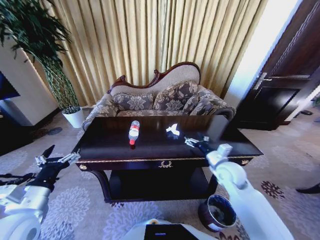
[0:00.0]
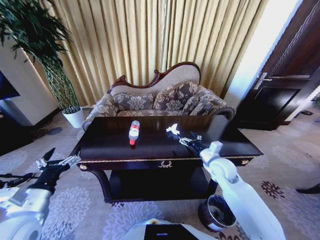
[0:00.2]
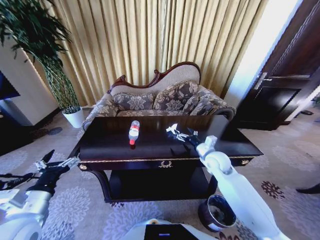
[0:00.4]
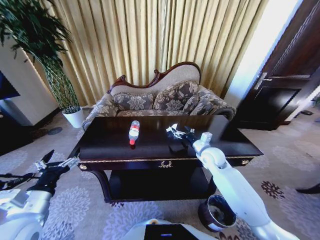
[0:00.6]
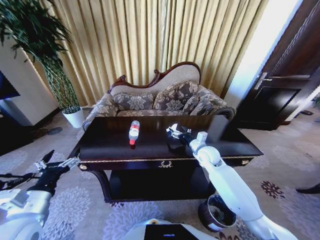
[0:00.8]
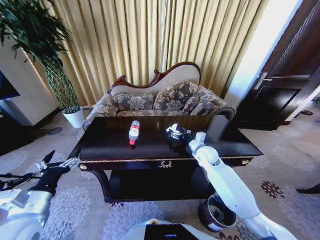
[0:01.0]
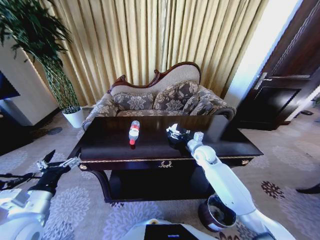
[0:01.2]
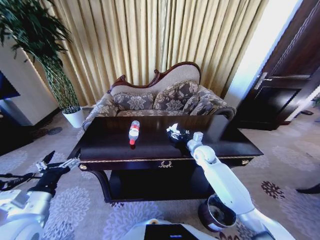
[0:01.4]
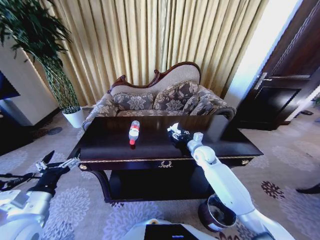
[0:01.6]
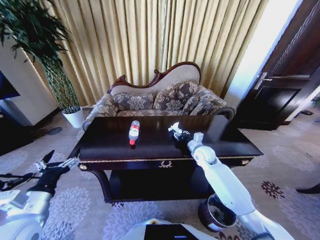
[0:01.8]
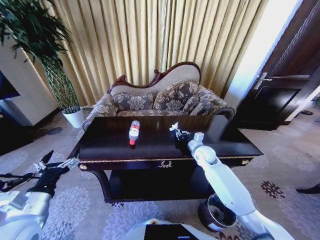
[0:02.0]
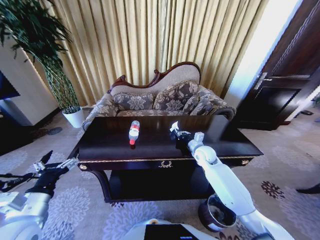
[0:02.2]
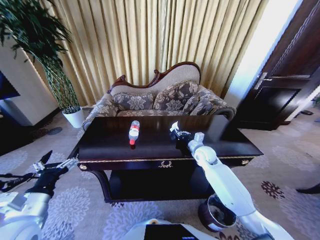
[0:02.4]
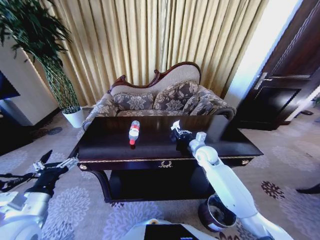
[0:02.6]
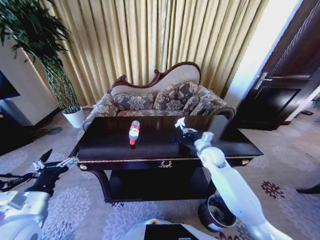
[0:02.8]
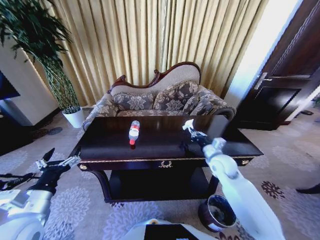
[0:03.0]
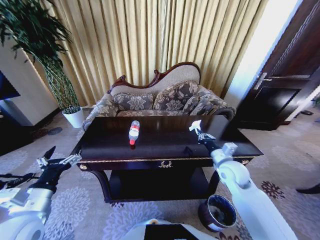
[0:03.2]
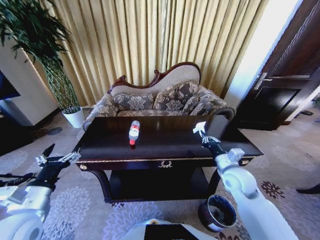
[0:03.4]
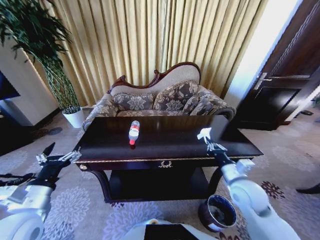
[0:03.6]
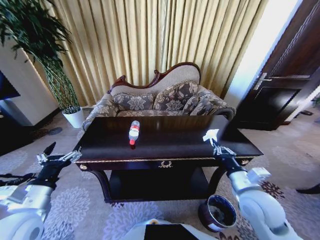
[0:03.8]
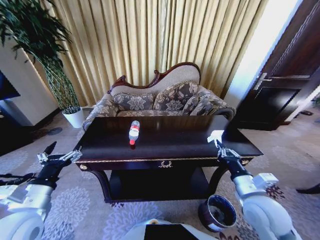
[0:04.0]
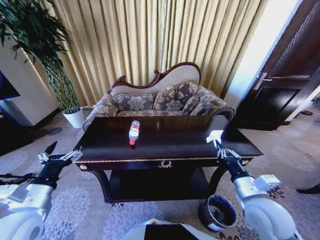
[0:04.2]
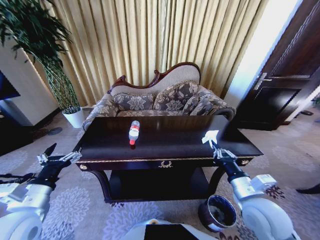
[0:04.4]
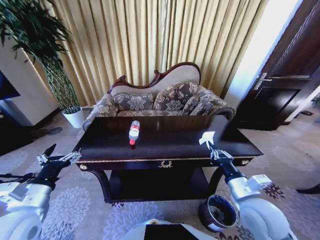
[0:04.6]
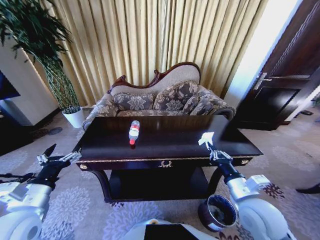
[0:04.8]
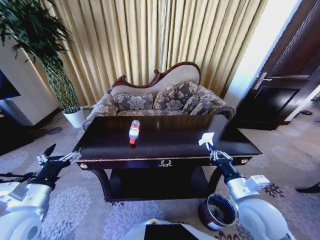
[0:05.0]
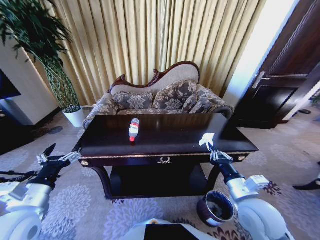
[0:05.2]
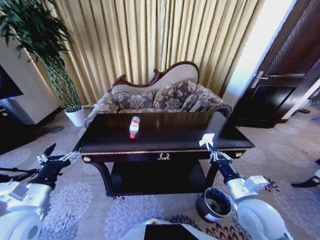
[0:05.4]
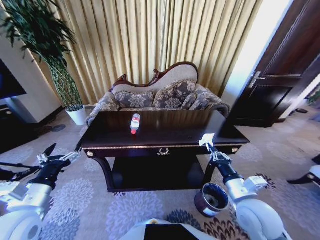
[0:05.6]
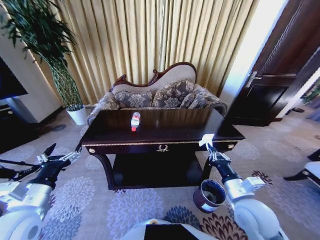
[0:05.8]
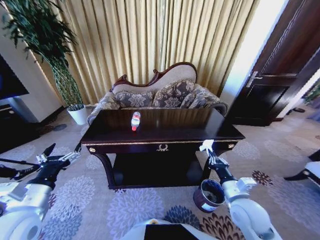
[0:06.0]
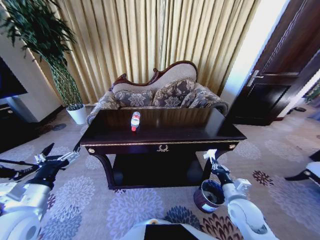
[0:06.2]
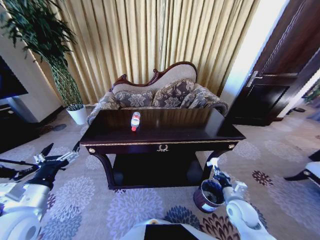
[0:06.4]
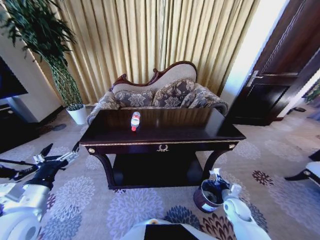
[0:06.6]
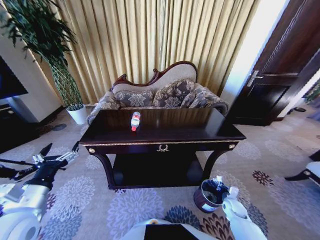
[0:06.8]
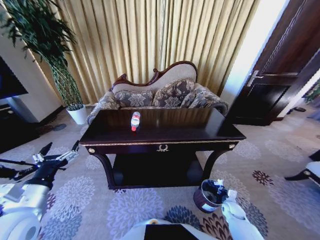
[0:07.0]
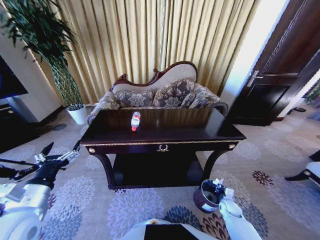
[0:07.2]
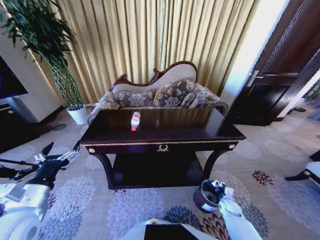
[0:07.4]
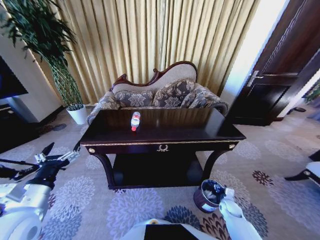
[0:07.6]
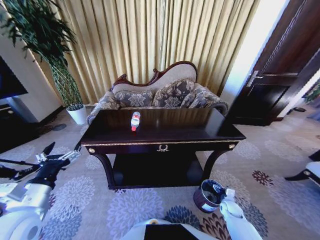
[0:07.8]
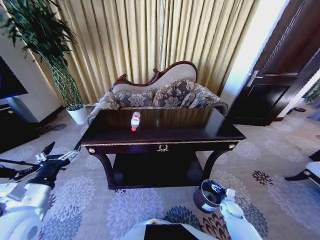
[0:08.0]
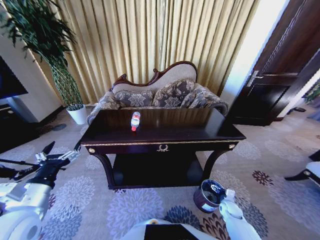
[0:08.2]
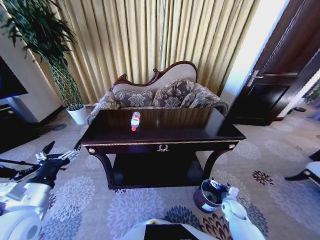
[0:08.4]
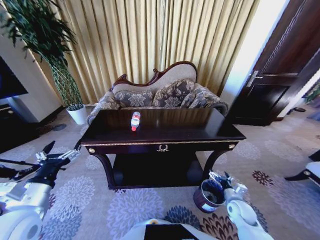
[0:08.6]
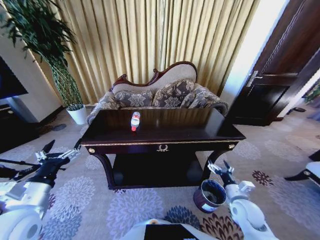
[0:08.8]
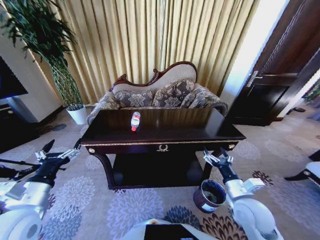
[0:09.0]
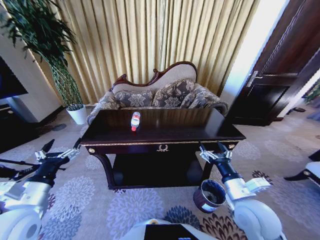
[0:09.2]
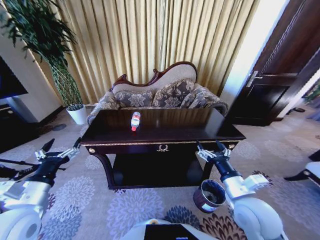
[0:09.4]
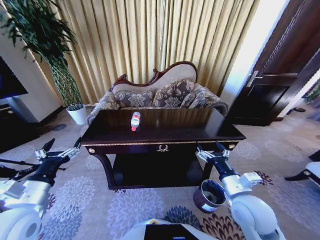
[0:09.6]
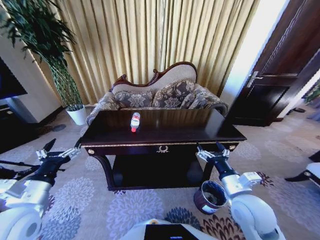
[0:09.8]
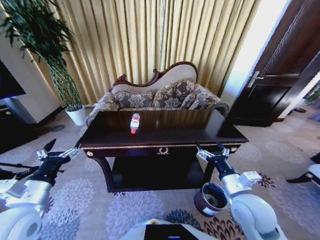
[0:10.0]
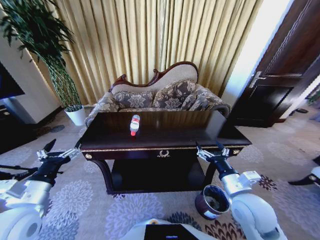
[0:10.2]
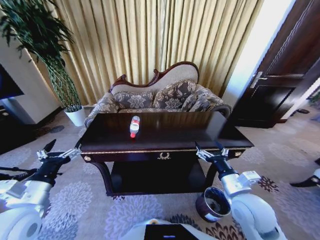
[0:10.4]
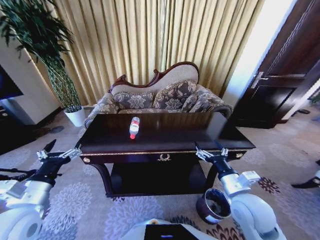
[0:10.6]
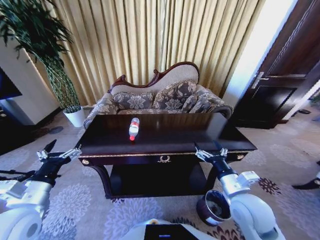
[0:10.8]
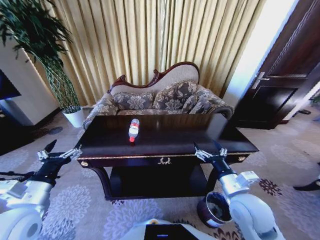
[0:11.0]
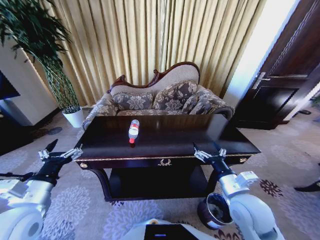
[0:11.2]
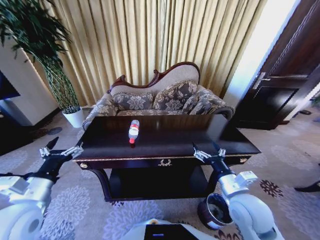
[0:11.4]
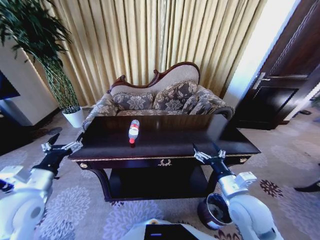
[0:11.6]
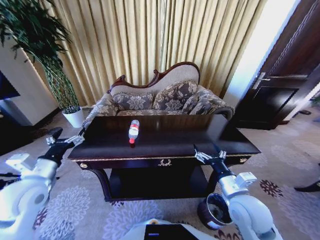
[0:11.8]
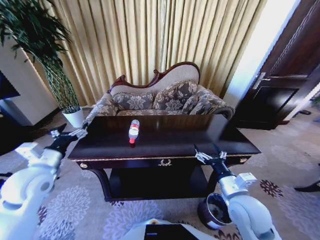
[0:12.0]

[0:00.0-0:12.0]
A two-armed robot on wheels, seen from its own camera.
Task of the whole recording: Move to the front of the table and place the trash on the table into the trash bin.
0:00.0 to 0:01.6: The right gripper is displaced forward by roughly 10 cm.
0:01.6 to 0:03.0: The right gripper heads backward, covering approximately 5 cm, and closes.
0:03.0 to 0:04.4: The right gripper is displaced backward by roughly 20 cm.
0:04.4 to 0:06.0: The right gripper is displaced downward by about 5 cm.
0:06.0 to 0:07.6: The right gripper is displaced downward and to the right by about 30 cm, and opens its fingers.
0:07.6 to 0:09.0: The right gripper moves upward, roughly 25 cm, and opens its fingers.
0:09.0 to 0:10.4: The right gripper goes roughly 5 cm upward.
0:10.4 to 0:12.0: The left gripper heads forward, covering about 10 cm.

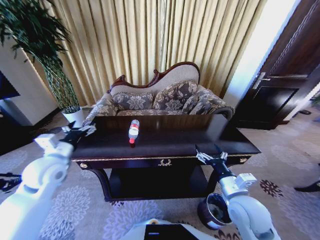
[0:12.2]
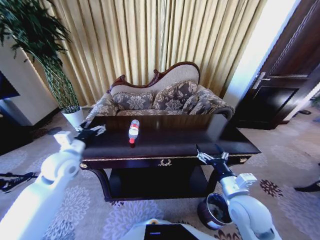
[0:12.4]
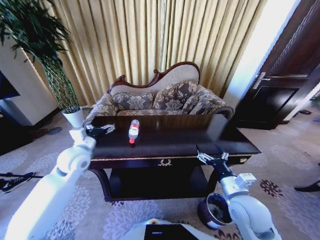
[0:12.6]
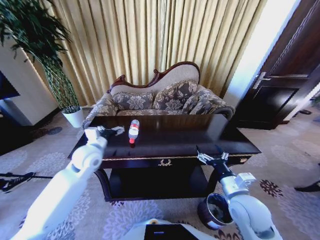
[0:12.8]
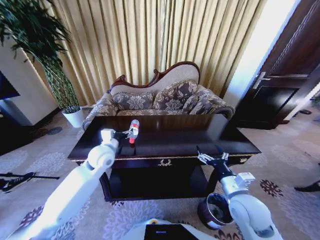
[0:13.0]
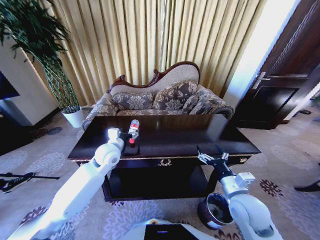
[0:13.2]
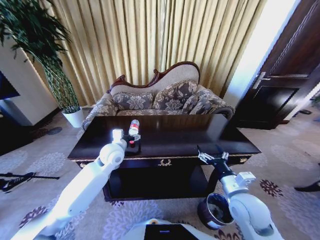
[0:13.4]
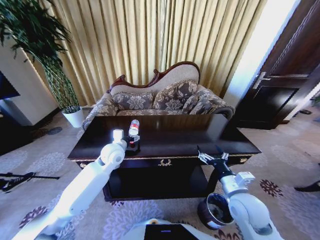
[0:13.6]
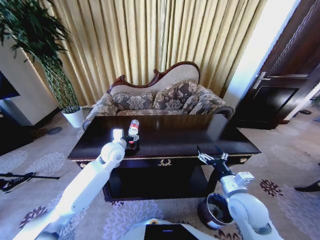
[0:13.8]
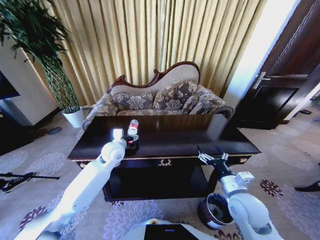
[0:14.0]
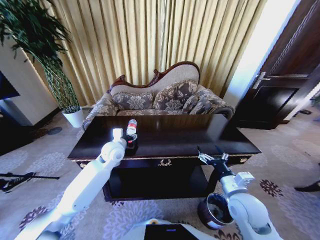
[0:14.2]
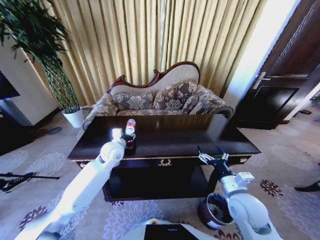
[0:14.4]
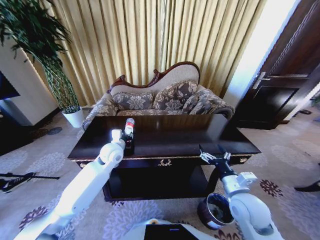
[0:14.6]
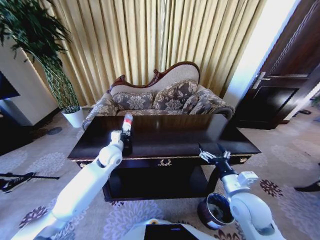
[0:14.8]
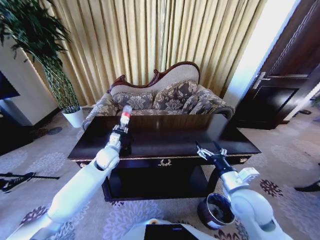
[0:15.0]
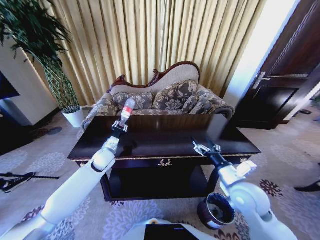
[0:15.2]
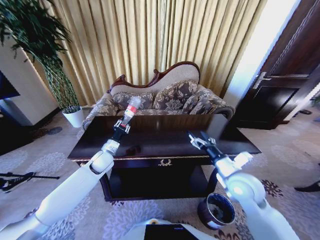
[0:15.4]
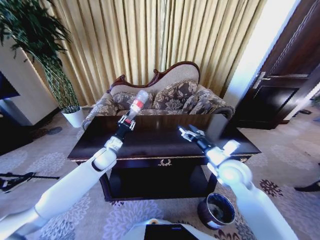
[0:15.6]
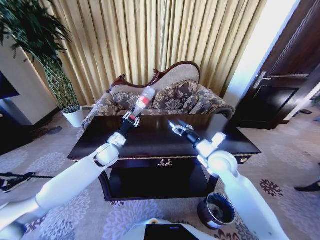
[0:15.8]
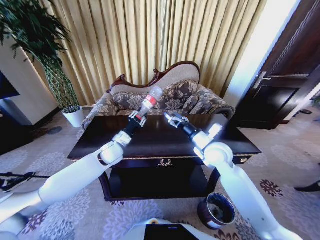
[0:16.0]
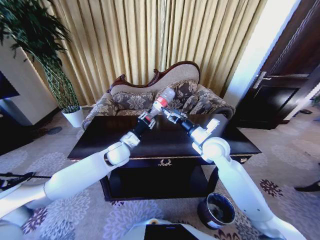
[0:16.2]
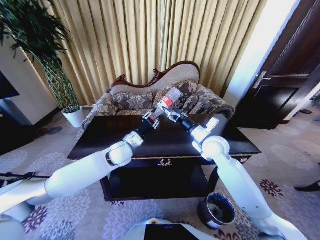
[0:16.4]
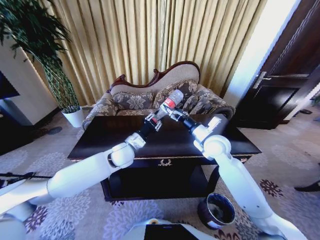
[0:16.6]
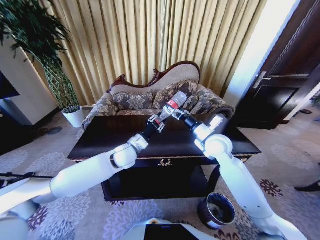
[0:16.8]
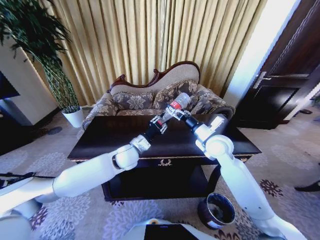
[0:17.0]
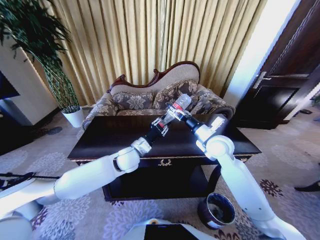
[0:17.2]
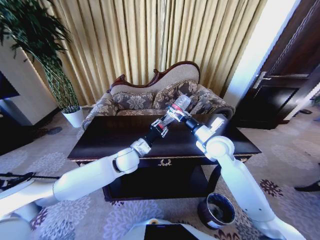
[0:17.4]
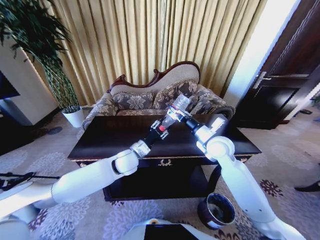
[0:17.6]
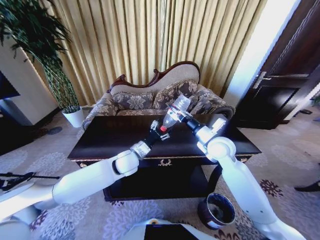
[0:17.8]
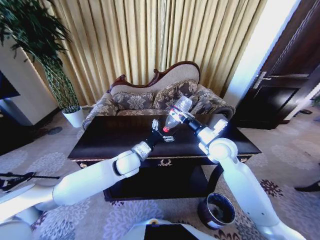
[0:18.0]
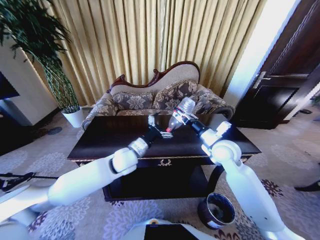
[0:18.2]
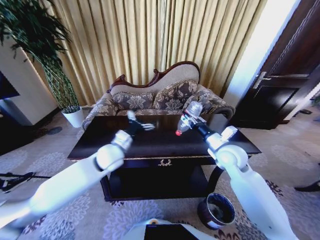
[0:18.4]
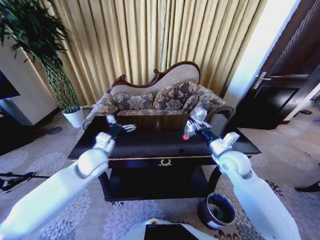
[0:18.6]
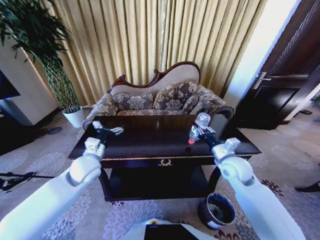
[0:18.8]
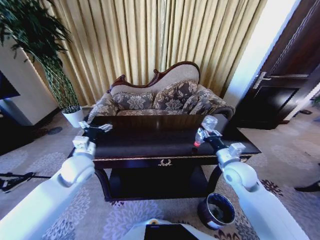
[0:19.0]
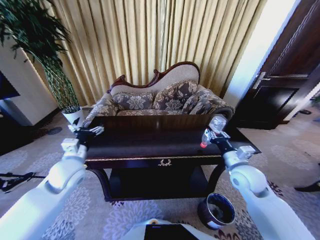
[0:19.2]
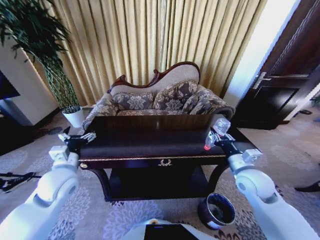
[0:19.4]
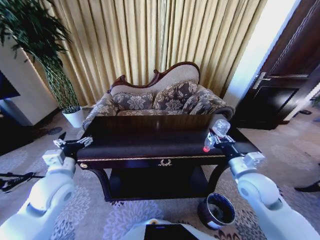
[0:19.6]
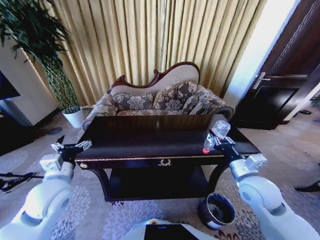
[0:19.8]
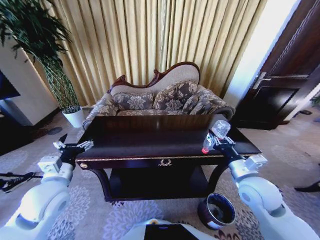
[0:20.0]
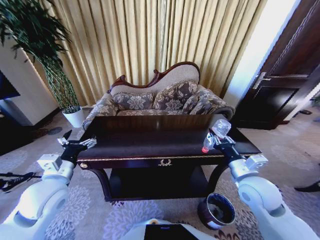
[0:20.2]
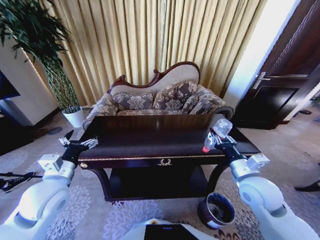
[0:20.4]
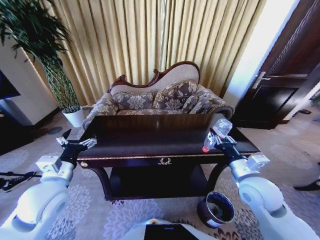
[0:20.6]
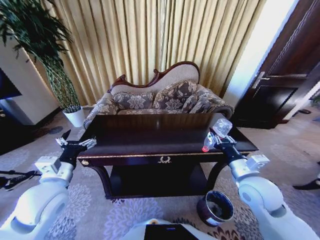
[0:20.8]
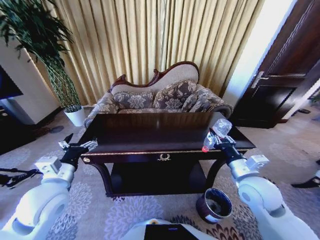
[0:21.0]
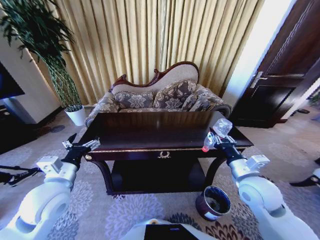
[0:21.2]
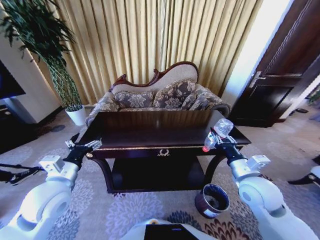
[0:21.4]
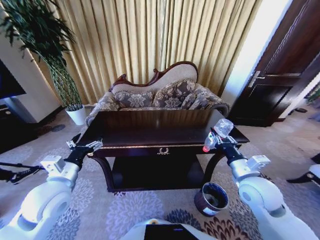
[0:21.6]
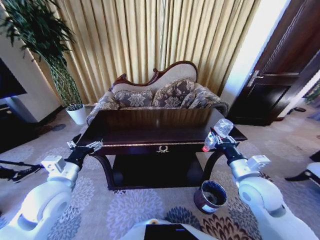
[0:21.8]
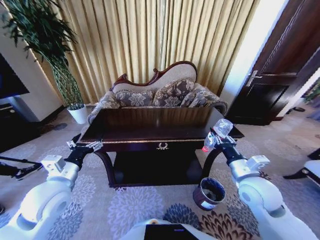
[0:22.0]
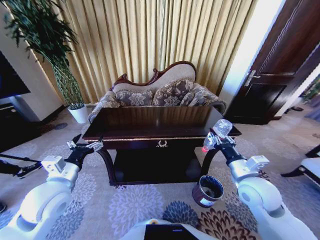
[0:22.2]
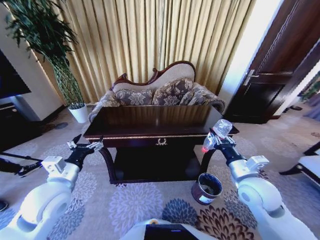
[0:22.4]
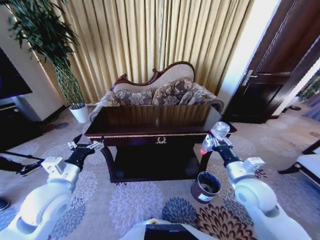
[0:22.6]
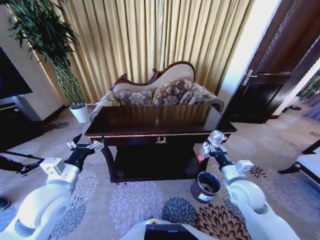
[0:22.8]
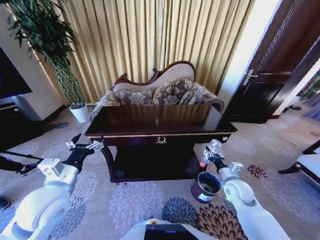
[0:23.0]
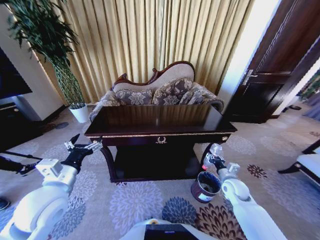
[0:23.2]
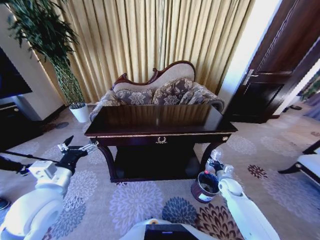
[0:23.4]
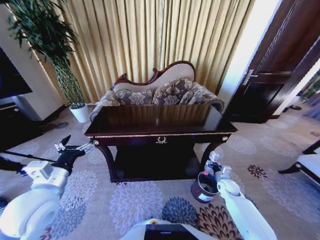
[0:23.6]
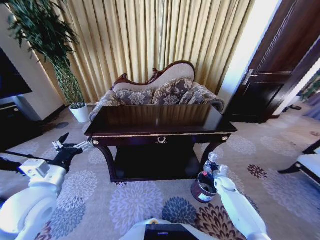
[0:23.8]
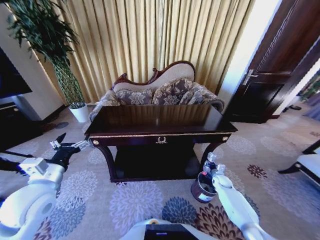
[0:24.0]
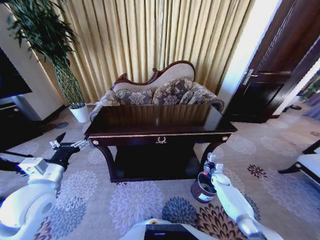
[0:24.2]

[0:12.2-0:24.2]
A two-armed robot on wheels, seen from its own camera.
Task of the whole recording: Move to the front of the table and place the trash on the table into the trash bin.
0:12.2 to 0:13.8: The left gripper moves to the right and forward, approximately 20 cm.
0:13.8 to 0:15.2: The left gripper travels downward and to the left by approximately 10 cm, and closes.
0:15.2 to 0:16.6: The right gripper travels forward by approximately 15 cm. Meanwhile the left gripper shifts approximately 15 cm to the right and upward.
0:16.6 to 0:18.2: The left gripper opens its fingers, while the right gripper closes up.
0:18.2 to 0:19.8: The right gripper heads backward, covering about 15 cm. Meanwhile the left gripper is displaced to the left and backward by about 25 cm.
0:22.6 to 0:24.2: The right gripper moves downward and forward, roughly 35 cm.
